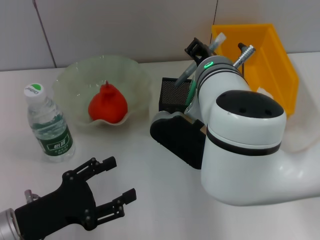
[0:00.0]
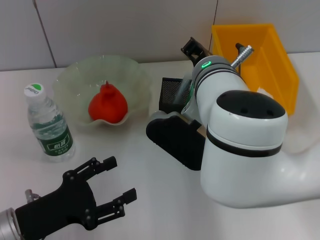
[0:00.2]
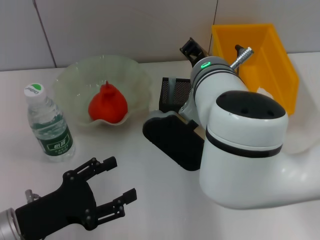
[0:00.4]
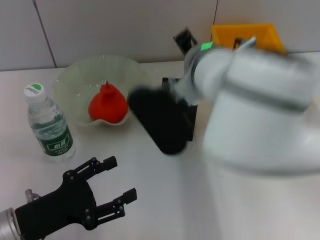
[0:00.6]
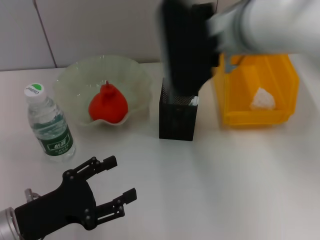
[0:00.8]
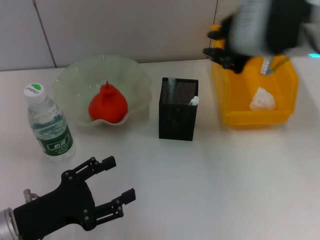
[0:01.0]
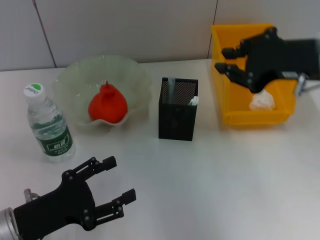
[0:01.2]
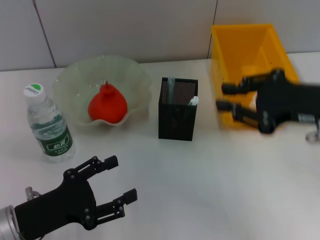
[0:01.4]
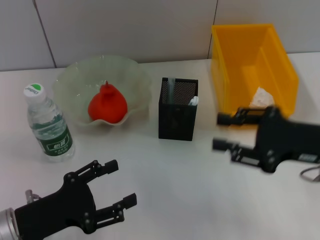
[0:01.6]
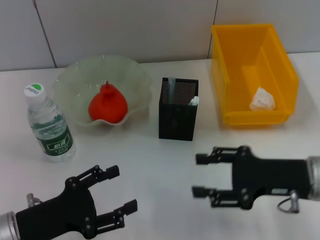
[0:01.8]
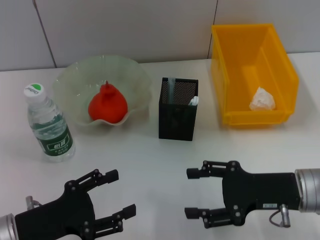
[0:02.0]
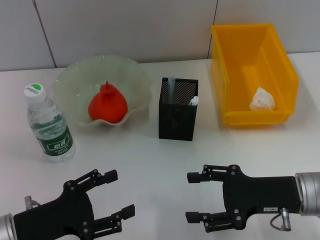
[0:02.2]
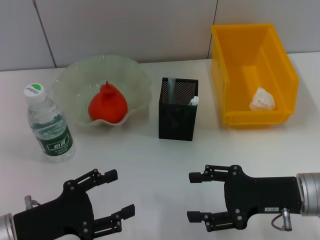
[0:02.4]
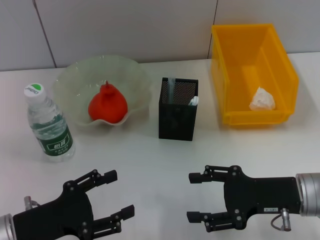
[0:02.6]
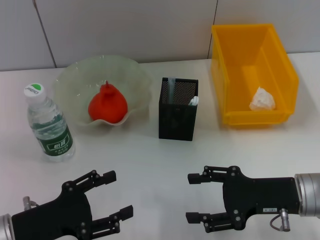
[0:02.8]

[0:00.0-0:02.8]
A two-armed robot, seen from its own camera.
0:00.0 to 0:01.4: The right gripper moves to the right, roughly 20 cm.
0:01.4 to 0:02.8: The right gripper travels downward by roughly 10 cm, and opens its fingers.

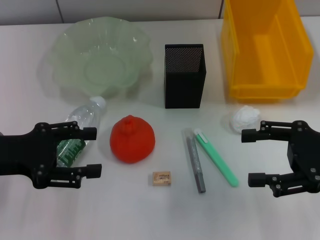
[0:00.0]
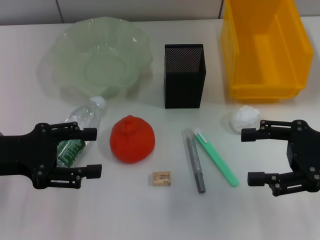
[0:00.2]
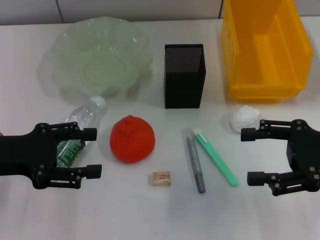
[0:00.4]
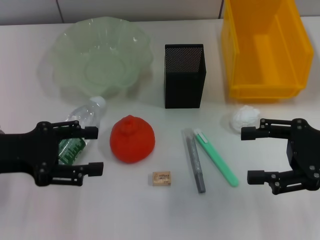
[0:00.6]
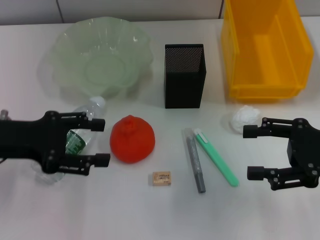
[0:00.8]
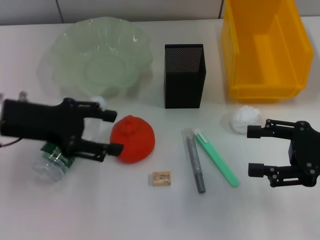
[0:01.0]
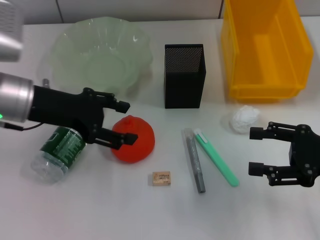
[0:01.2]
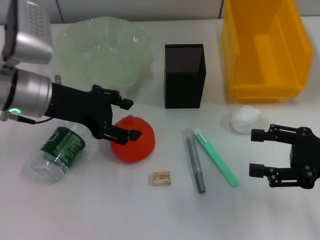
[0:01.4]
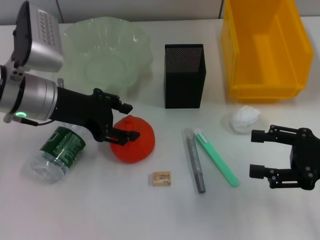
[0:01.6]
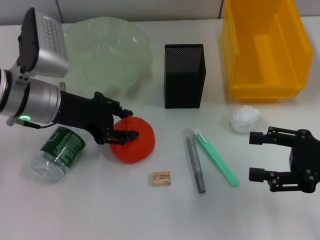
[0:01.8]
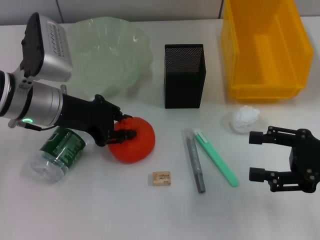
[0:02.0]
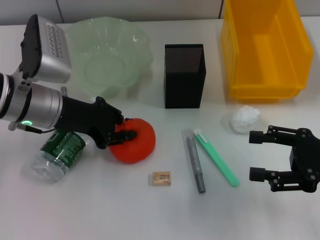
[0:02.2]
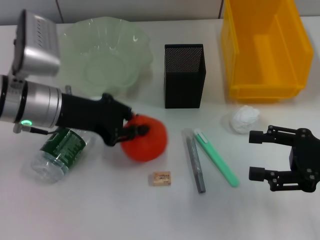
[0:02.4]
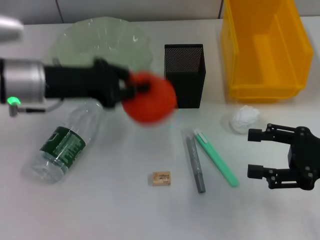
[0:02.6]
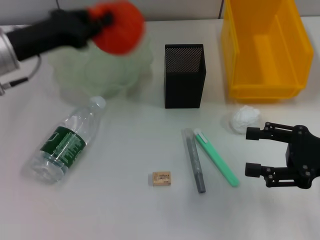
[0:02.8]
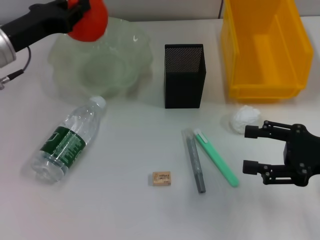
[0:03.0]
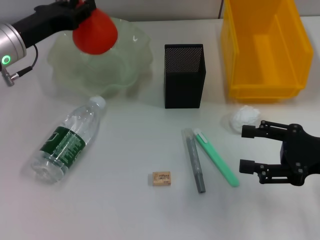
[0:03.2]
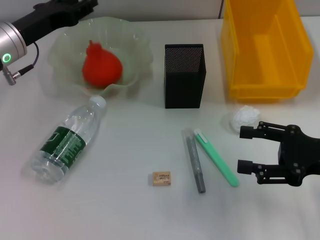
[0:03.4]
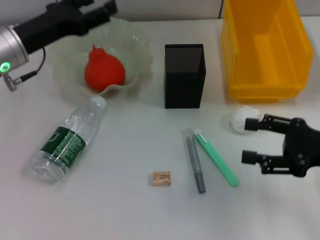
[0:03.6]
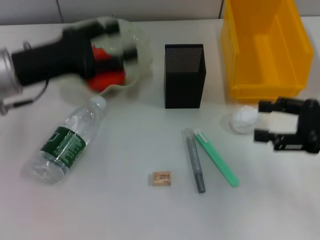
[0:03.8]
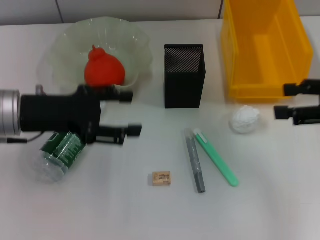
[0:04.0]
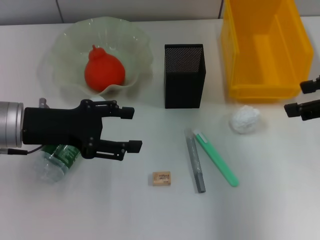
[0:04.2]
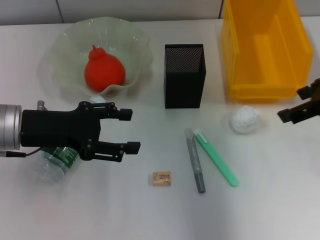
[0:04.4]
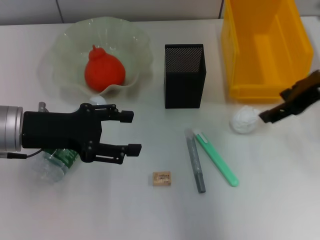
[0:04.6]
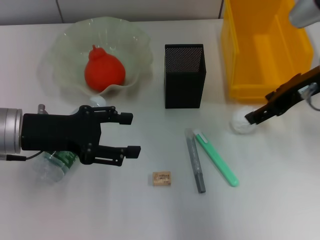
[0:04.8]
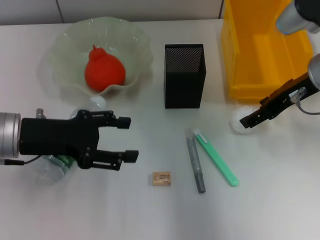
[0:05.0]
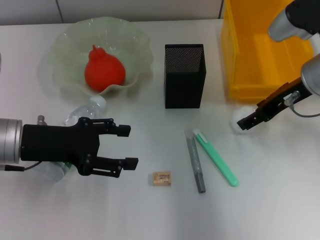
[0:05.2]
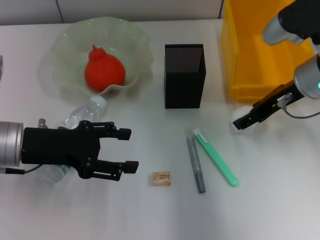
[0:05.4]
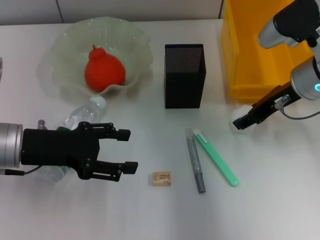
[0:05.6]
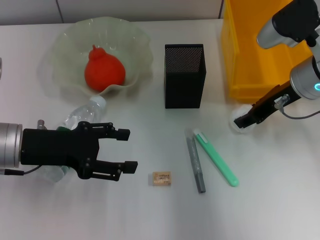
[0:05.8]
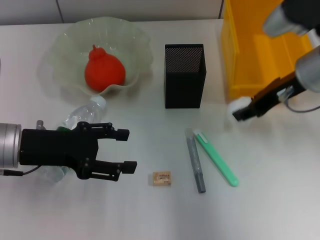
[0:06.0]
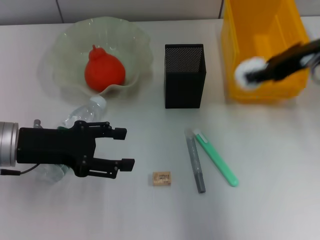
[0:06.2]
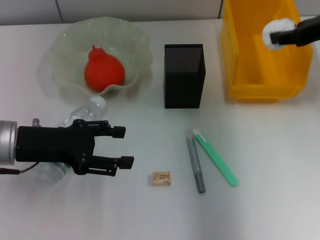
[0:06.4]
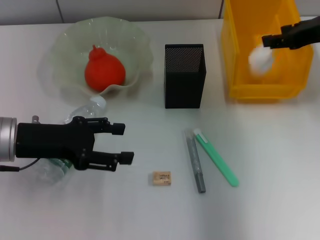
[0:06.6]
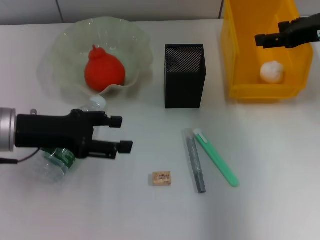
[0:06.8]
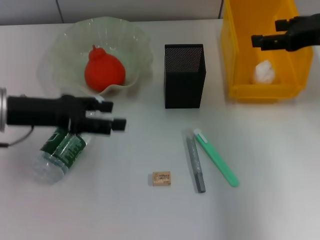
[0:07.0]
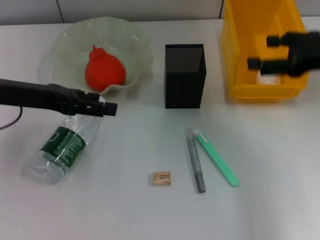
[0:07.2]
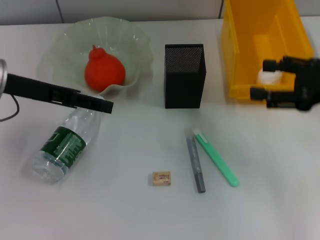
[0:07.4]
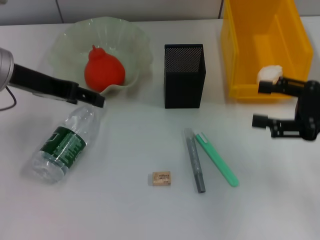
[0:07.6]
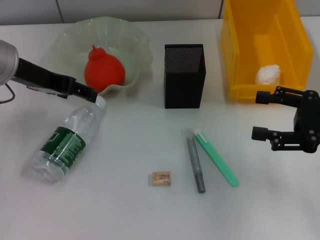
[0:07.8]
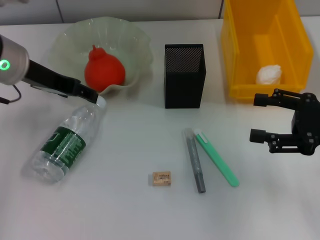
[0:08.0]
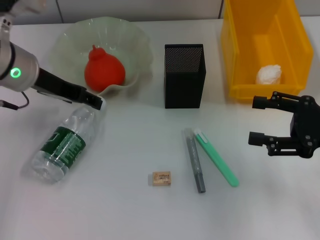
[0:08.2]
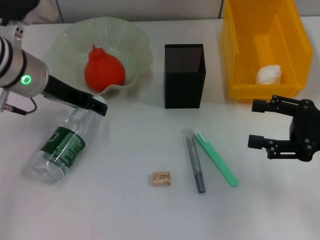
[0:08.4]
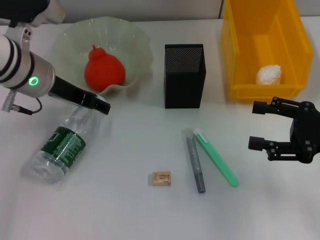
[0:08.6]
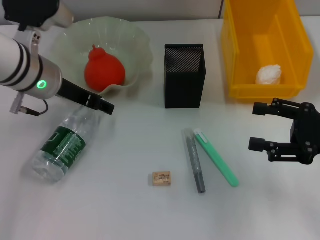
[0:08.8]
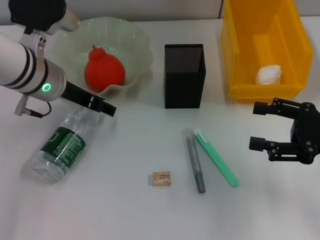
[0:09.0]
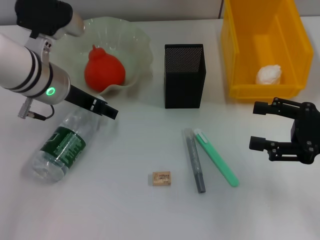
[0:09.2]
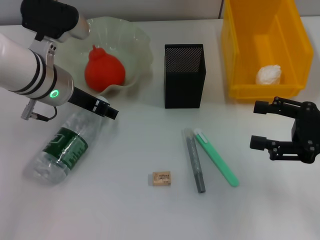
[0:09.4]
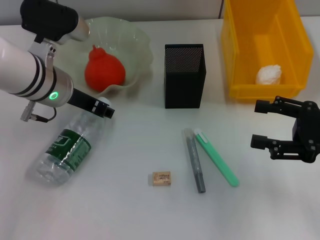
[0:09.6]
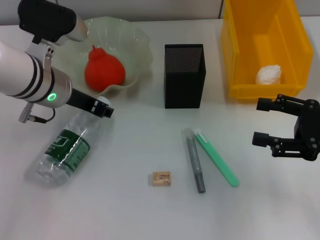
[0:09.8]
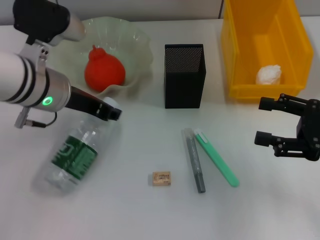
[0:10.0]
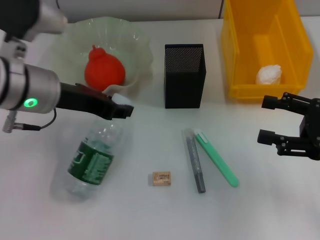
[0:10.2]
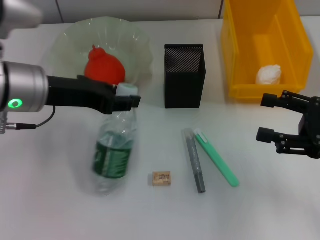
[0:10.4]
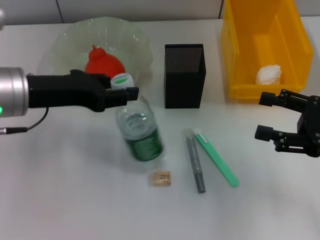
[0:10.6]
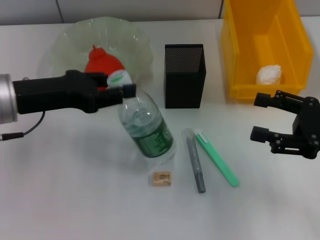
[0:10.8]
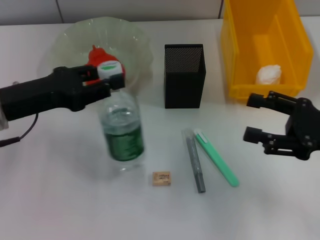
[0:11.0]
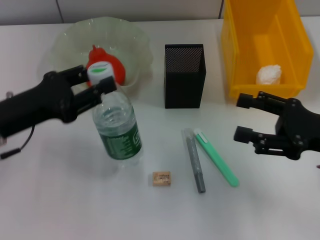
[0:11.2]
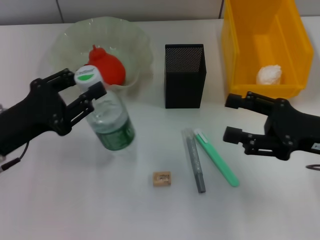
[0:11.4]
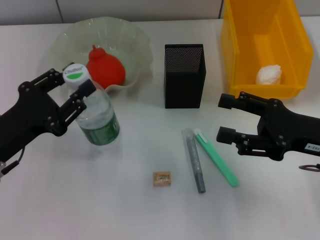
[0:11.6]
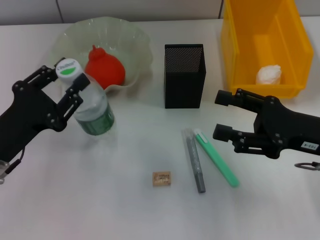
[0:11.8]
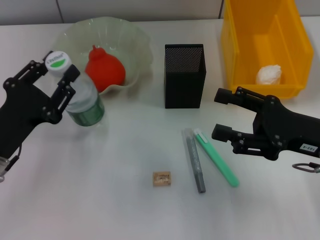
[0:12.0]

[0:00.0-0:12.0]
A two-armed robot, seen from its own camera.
Step, 0:00.0 to 0:02.0: Grab the orange with the left hand.
Step, 0:02.2 to 0:03.4: Place the orange into the fruit bowl with the left hand.
Step, 0:03.8 to 0:05.4: Grab the paper ball with the right hand.
Step, 0:05.6 to 0:06.8: Place the paper ball into the trash can with the right hand.
Step, 0:07.0 to 0:09.4: Grab the water bottle with the left hand.
0:00.0 to 0:01.6: The left gripper shifts roughly 15 cm forward and to the right.
0:01.6 to 0:03.0: The left gripper heads to the left, covering approximately 5 cm, and closes up.
0:03.0 to 0:04.4: The right gripper shifts approximately 15 cm upward and forward. Meanwhile the left gripper travels backward by some 10 cm, and opens its fingers.
0:04.4 to 0:06.0: The right gripper heads to the left and downward, covering some 10 cm, and closes its fingers.
0:06.0 to 0:07.6: The right gripper moves to the right and backward, roughly 15 cm, and opens. Meanwhile the left gripper heads upward and forward, covering about 10 cm.
0:07.6 to 0:09.0: The left gripper shifts roughly 10 cm to the right and downward.
0:09.0 to 0:10.4: The left gripper is displaced backward by about 5 cm, and closes its fingers.
0:10.4 to 0:12.0: The left gripper goes some 15 cm downward, backward and to the left, while the right gripper travels to the left by roughly 5 cm.

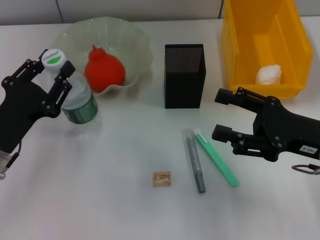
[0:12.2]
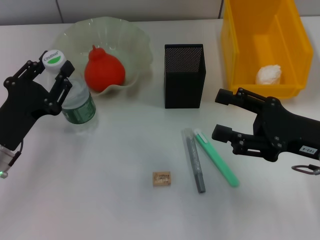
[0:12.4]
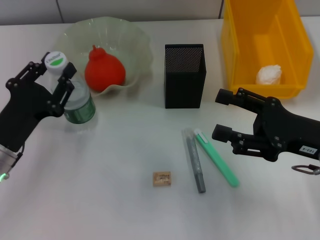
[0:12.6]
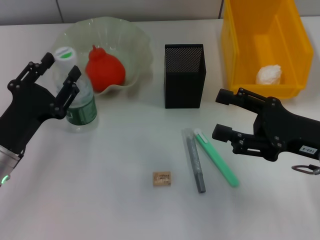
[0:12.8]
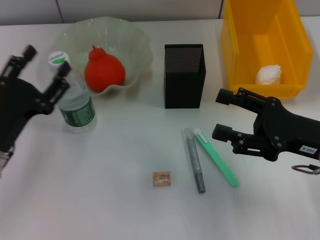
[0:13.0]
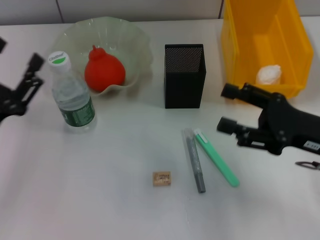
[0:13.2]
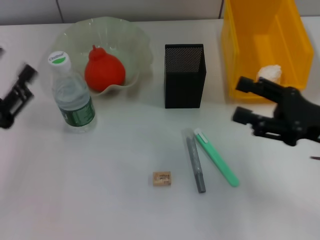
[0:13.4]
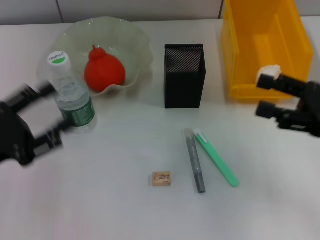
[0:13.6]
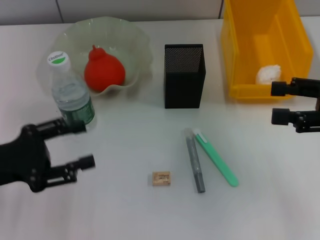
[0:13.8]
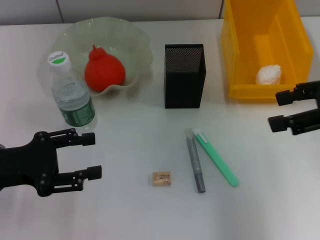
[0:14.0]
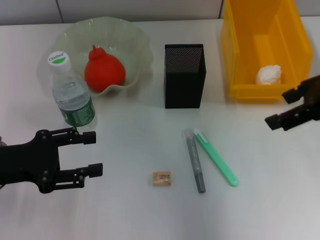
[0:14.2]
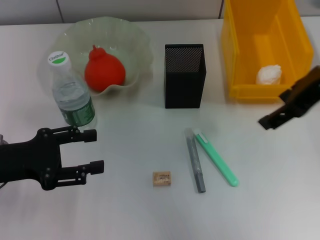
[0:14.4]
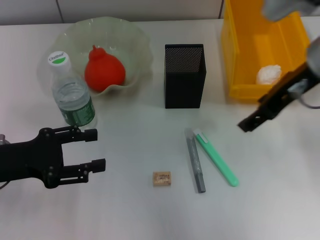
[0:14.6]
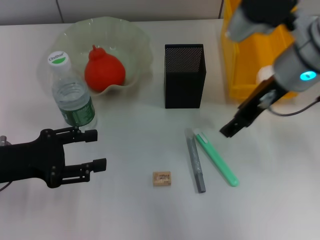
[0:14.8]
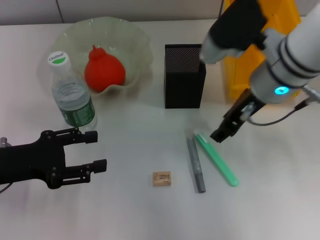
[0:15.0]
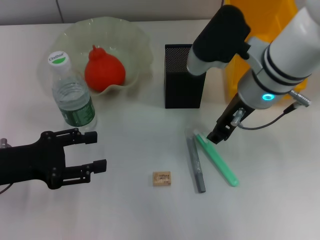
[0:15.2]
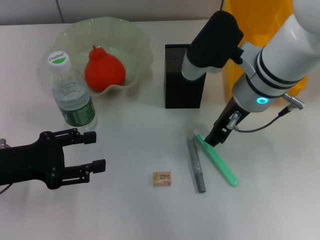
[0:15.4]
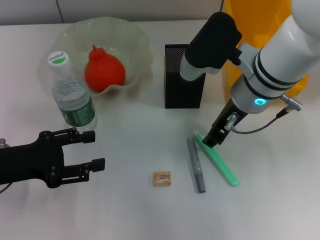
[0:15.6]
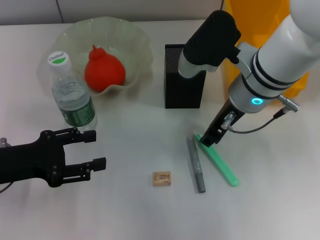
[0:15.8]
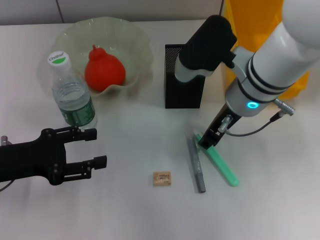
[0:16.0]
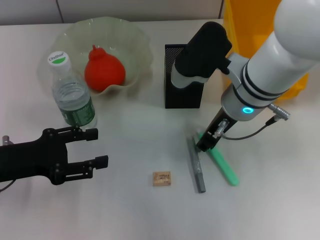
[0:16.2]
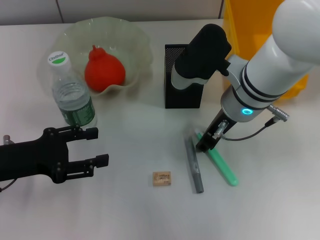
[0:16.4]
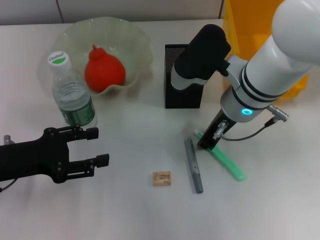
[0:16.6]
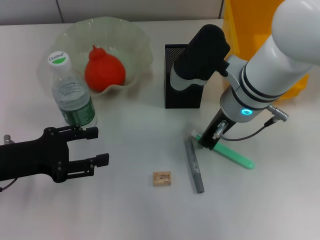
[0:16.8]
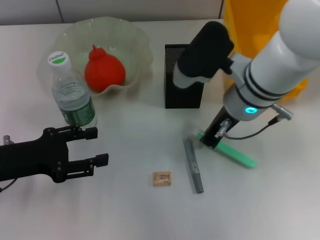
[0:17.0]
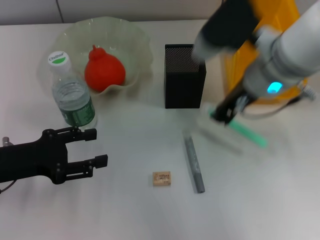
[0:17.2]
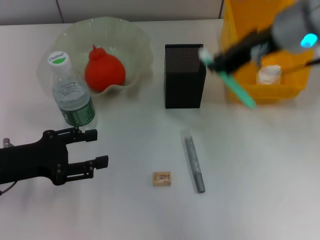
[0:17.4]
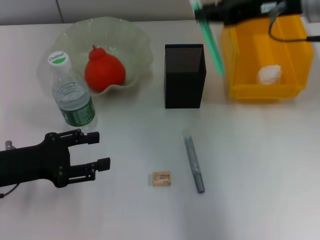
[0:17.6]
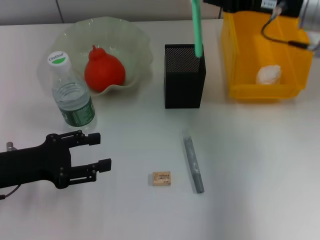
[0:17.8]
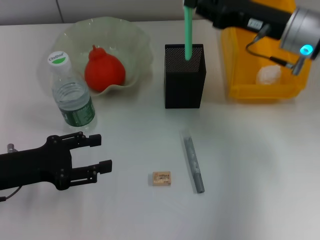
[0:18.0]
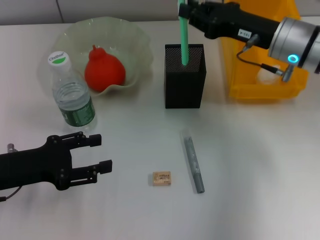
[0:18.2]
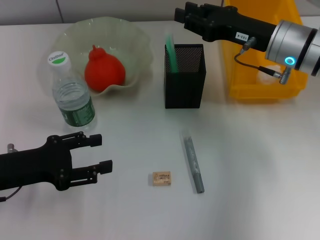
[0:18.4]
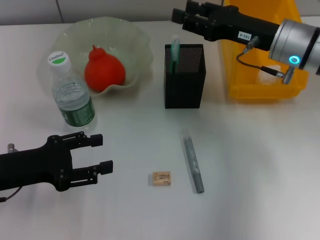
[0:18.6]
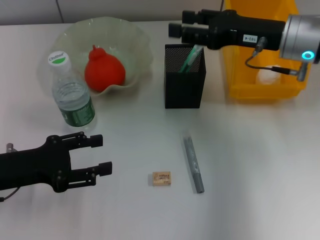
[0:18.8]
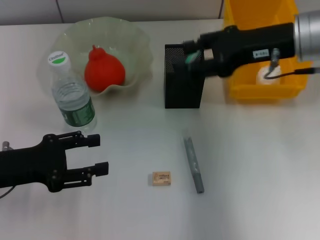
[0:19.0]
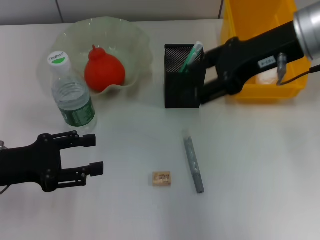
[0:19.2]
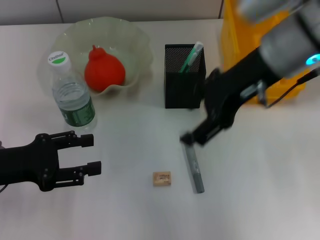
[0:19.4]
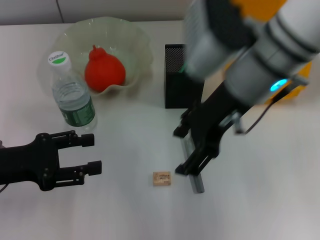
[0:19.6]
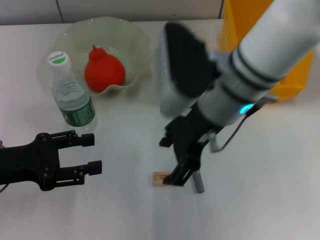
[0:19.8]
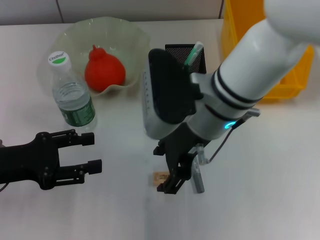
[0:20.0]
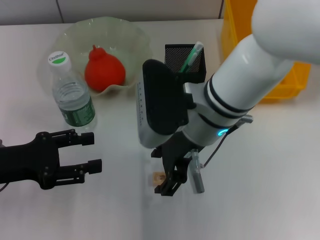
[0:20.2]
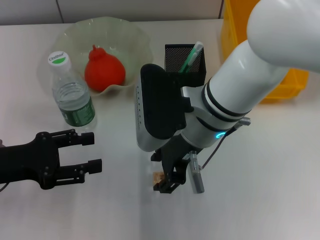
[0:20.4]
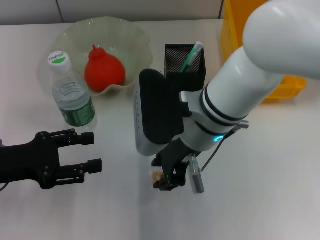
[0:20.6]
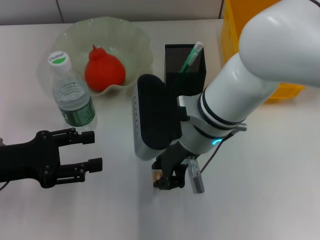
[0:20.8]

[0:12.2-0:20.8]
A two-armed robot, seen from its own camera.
Step, 0:13.2 to 0:16.6: Grab the blue utility knife with the right hand.
Step, 0:16.8 to 0:18.6: Place the blue utility knife into the pen holder with the right hand.
0:12.2 to 0:13.6: The left gripper ends up some 5 cm from where it was, and opens. The right gripper shifts approximately 5 cm to the right.
0:13.6 to 0:15.0: The right gripper shifts approximately 20 cm to the left and forward.
0:15.0 to 0:16.6: The right gripper closes its fingers.
0:16.6 to 0:18.0: The right gripper heads to the right, covering some 10 cm.
0:18.0 to 0:19.4: The right gripper goes some 10 cm upward and to the left, and opens its fingers.
0:19.4 to 0:20.8: The right gripper goes roughly 15 cm downward and to the left, and closes.
